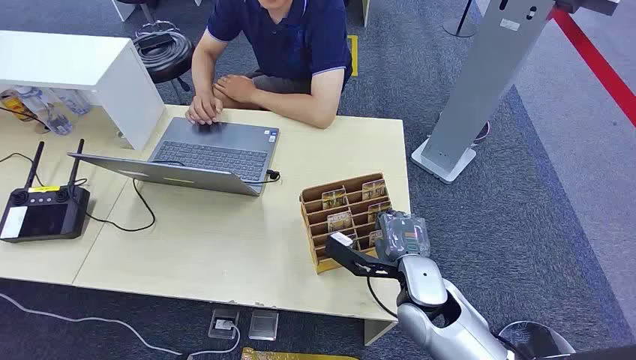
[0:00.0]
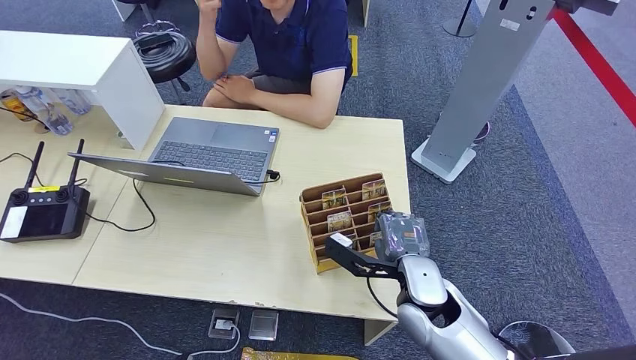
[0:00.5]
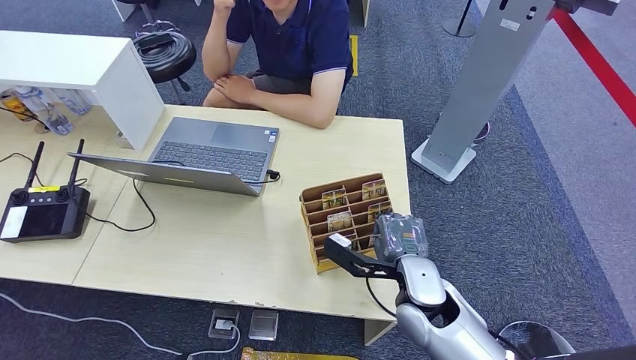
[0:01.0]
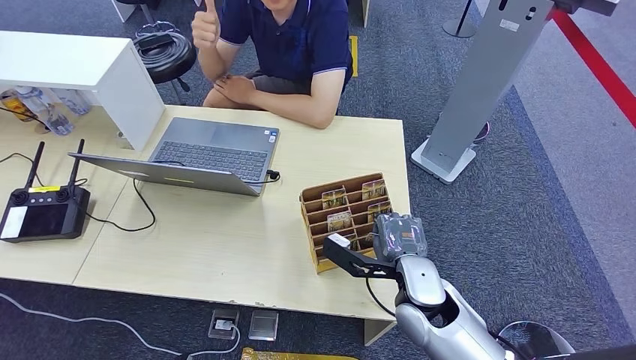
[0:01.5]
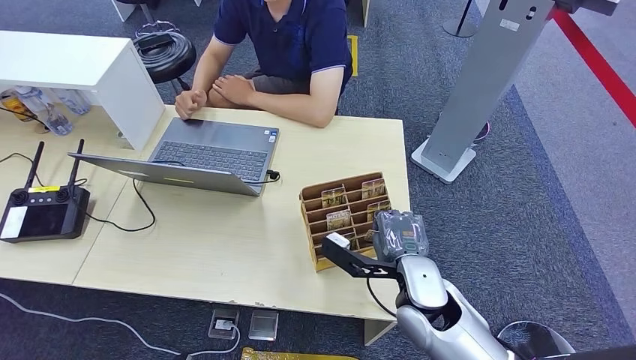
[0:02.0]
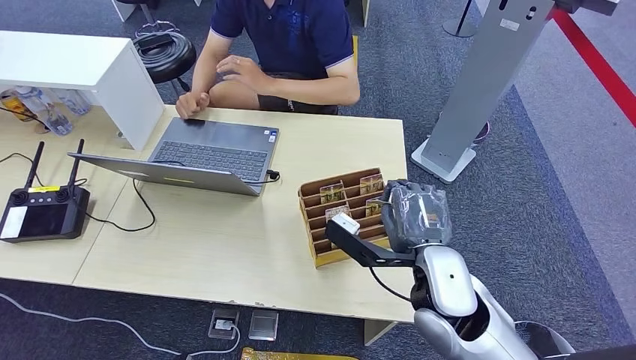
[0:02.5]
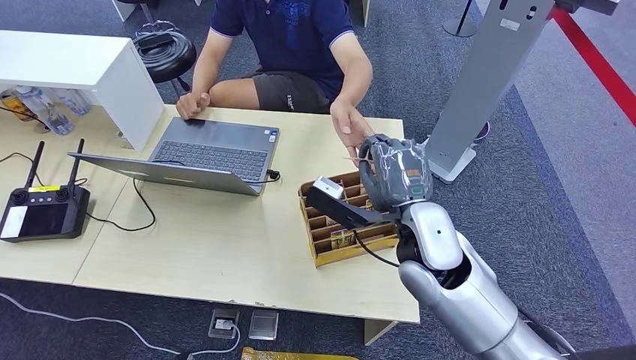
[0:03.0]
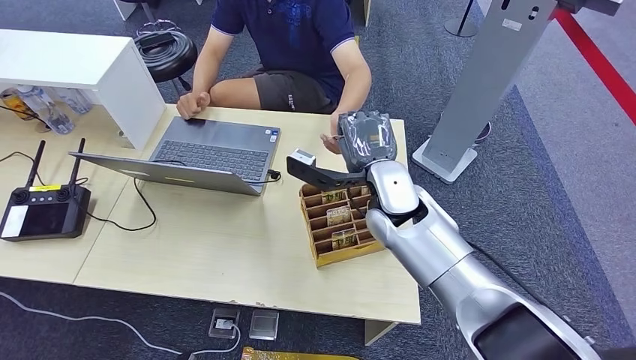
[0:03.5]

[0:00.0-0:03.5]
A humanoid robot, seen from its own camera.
Step, 0:00.0 to 0:02.0: Pick up the room card from the card holder.
Step, 0:03.0 to 0:03.5: Hand the room card to the target.
0:02.0 to 0:03.5: The right hand travels forward, upward and to the left by some 15 cm.
